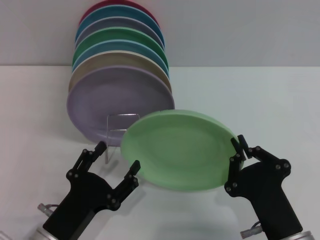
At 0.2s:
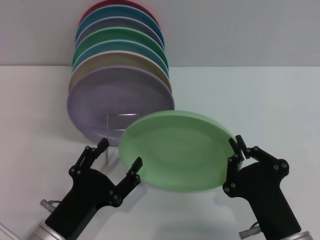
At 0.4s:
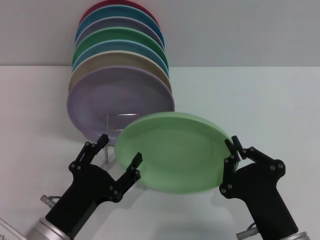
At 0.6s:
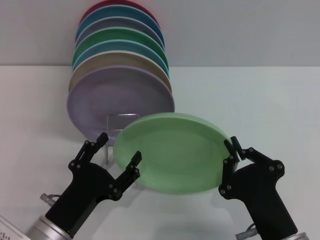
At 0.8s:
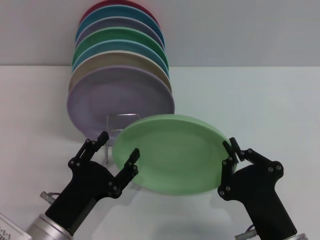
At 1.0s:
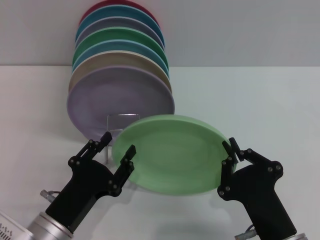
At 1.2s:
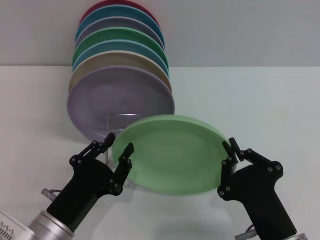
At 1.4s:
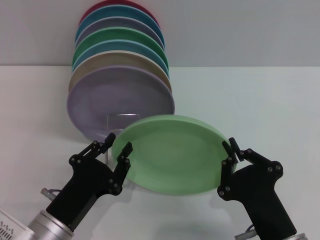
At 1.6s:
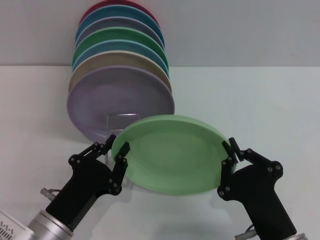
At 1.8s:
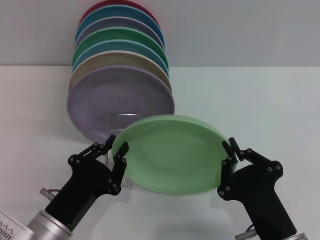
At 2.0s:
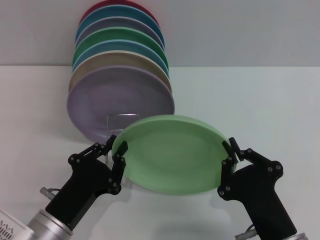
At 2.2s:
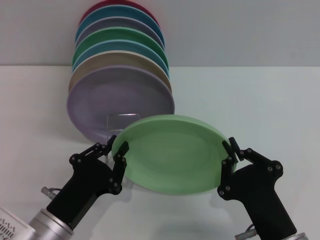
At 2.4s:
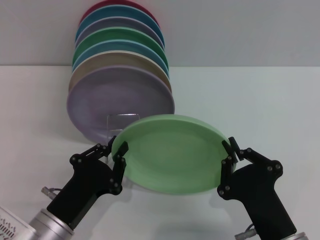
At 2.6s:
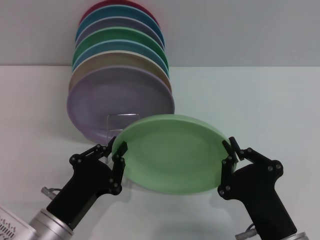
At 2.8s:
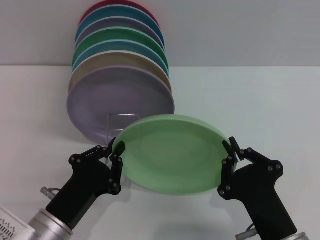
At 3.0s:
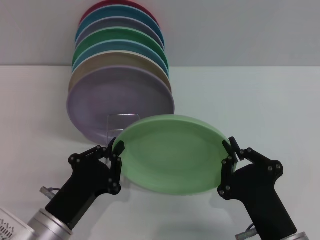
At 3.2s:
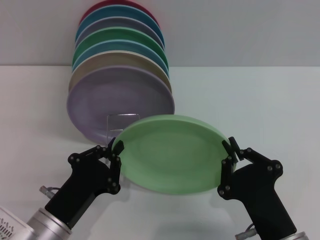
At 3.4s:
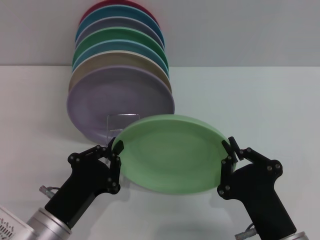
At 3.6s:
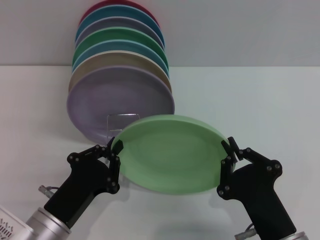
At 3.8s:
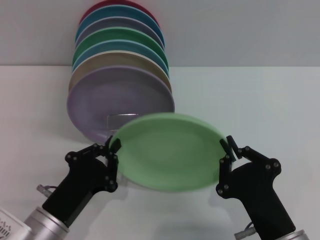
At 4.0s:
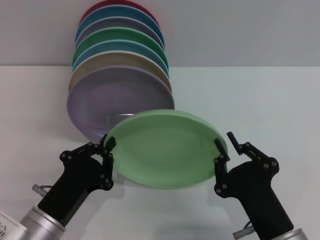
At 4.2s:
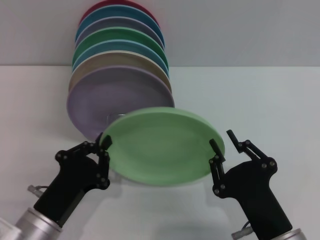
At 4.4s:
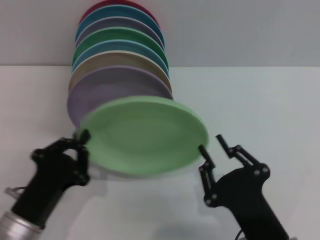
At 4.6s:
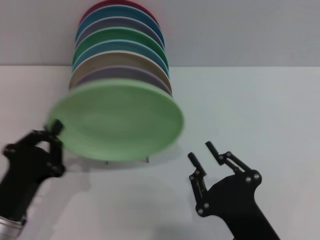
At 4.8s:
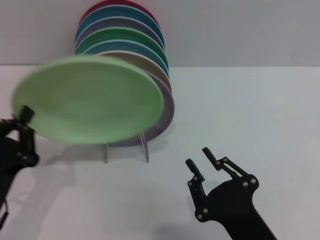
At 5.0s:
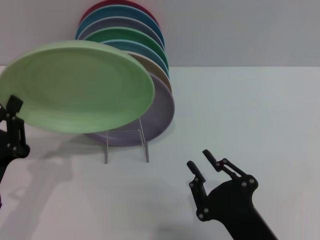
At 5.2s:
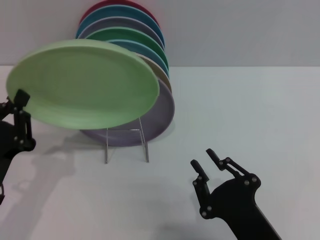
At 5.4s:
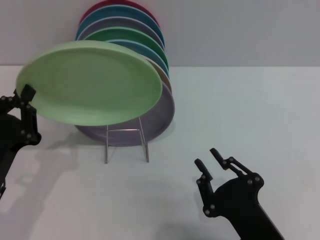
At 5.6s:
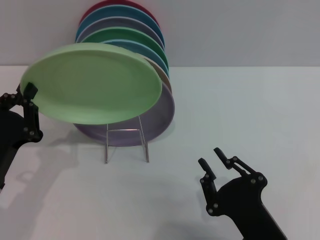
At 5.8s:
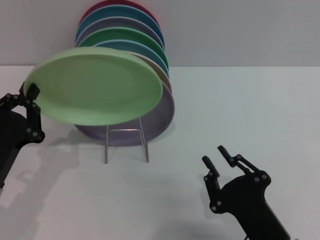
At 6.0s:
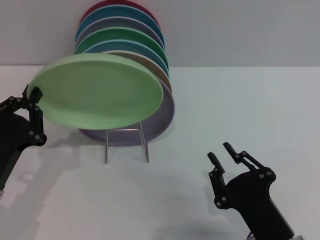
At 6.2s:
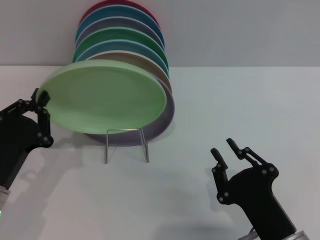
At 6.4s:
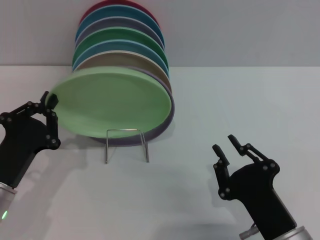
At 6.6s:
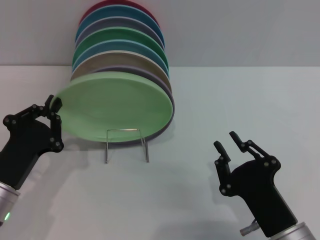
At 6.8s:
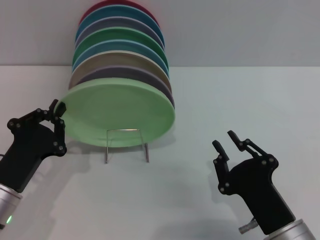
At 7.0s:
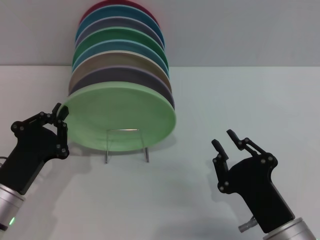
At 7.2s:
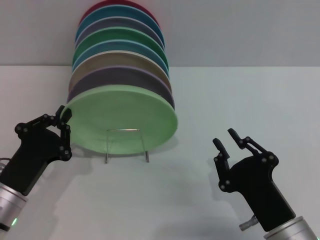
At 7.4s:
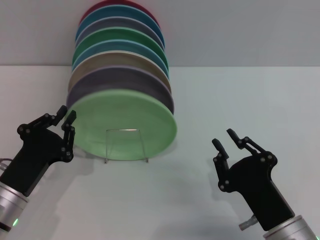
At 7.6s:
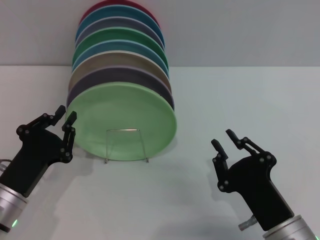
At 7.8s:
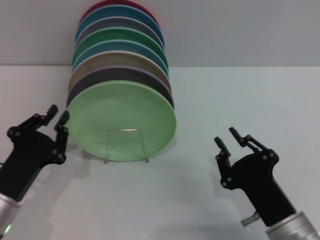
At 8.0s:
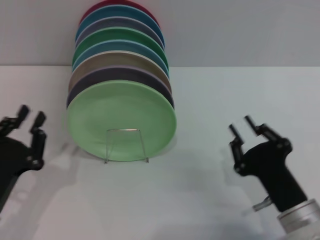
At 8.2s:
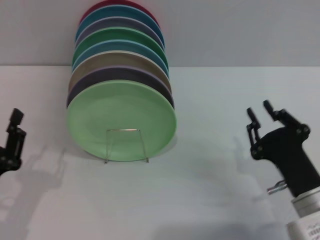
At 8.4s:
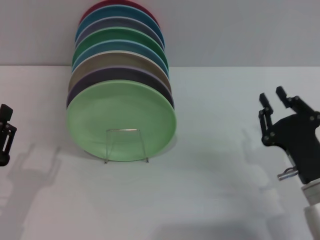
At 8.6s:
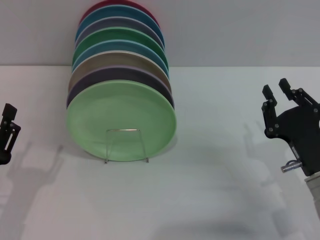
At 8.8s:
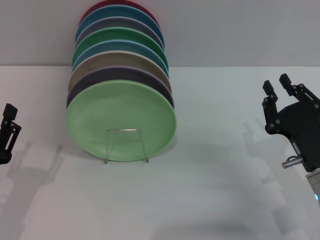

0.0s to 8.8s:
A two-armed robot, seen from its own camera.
Task of the whole recording: Grip the plate with one hand, pass it to the other, then set it on the shelf.
Step, 0.0s to 4.0s: Pass the plate from the right gripper to the left gripper.
Step, 4.4s to 7.6s: Place the plate on the shelf with the left gripper.
0.0s to 1.4s: The left gripper closes up.
1.4s to 3.0s: Both grippers stay about where they are.
3.0s to 4.4s: The right gripper opens its fingers.
4.4s to 5.8s: The left gripper shifts by approximately 5 cm.
7.4s to 8.8s: The left gripper ends up roughly 5 cm from where it was, and opens its fingers, while the right gripper heads forward and to the right, covering some 10 cm.

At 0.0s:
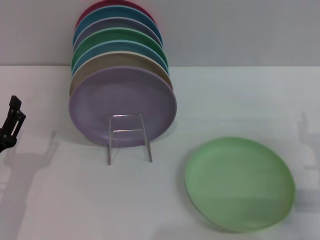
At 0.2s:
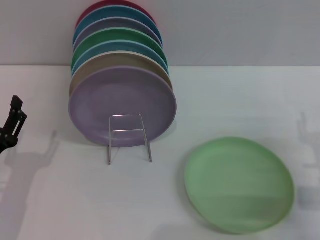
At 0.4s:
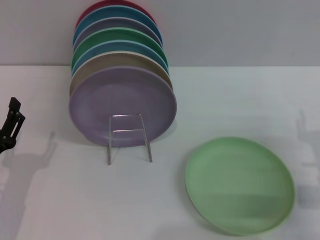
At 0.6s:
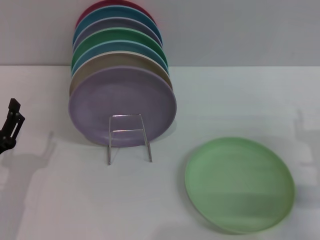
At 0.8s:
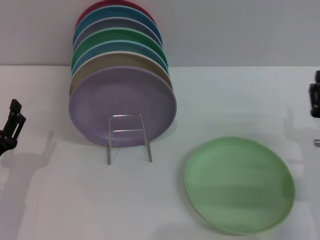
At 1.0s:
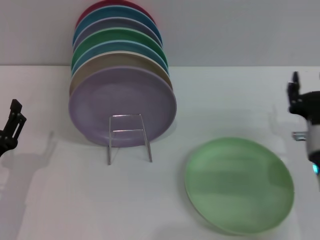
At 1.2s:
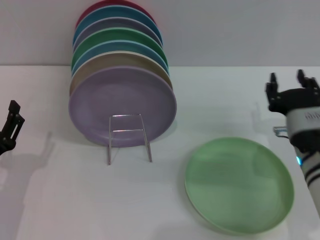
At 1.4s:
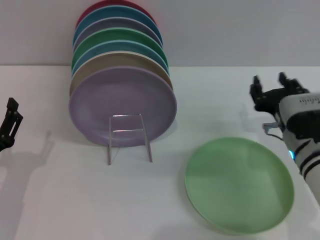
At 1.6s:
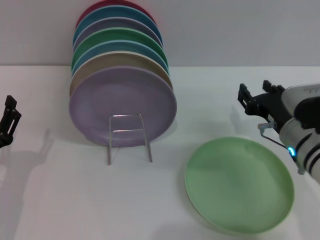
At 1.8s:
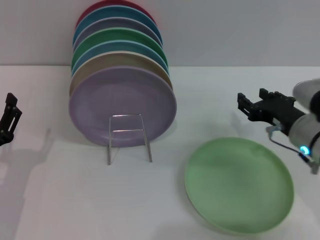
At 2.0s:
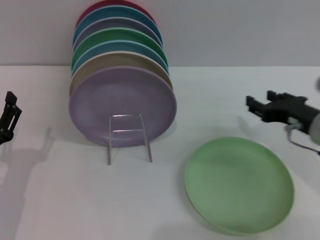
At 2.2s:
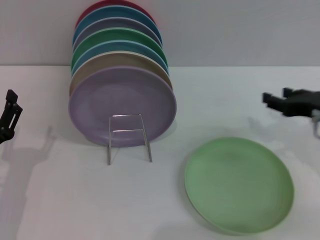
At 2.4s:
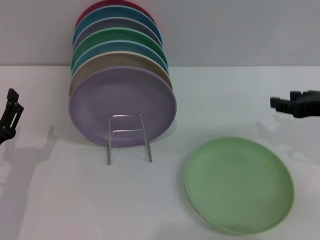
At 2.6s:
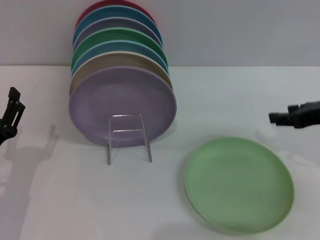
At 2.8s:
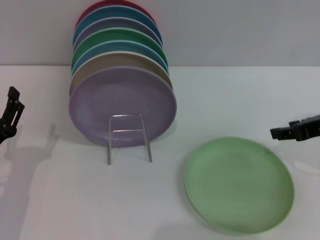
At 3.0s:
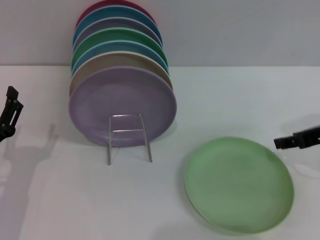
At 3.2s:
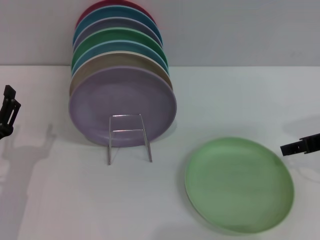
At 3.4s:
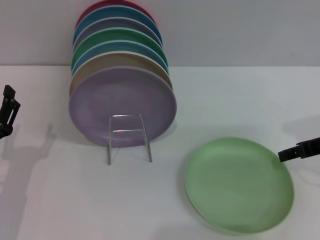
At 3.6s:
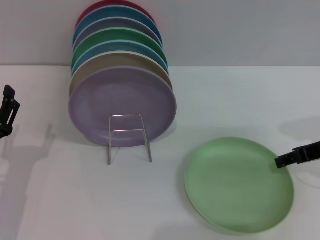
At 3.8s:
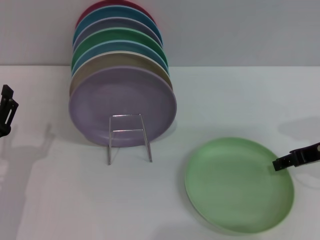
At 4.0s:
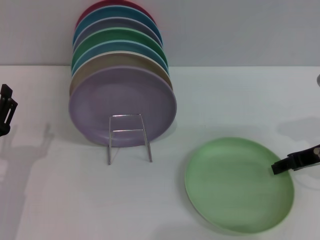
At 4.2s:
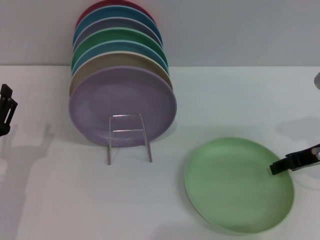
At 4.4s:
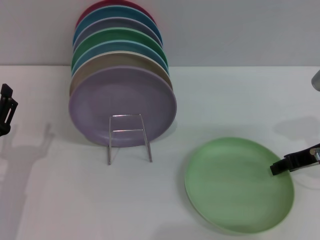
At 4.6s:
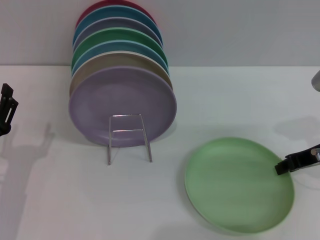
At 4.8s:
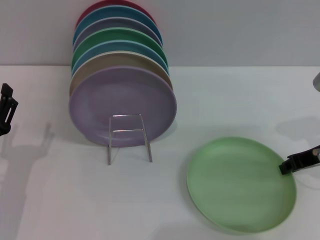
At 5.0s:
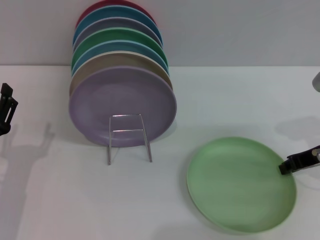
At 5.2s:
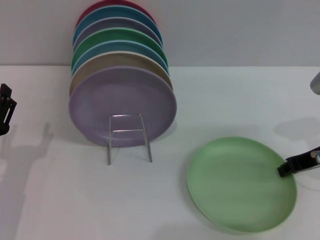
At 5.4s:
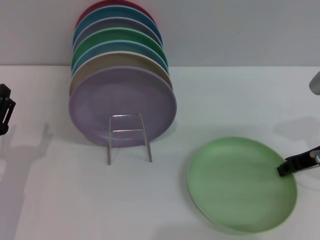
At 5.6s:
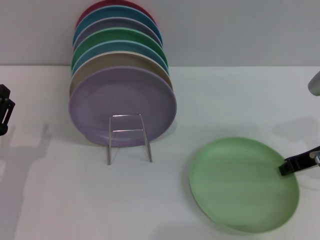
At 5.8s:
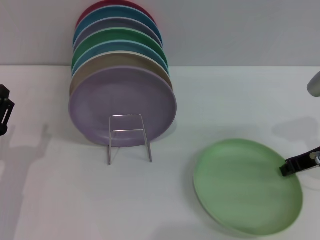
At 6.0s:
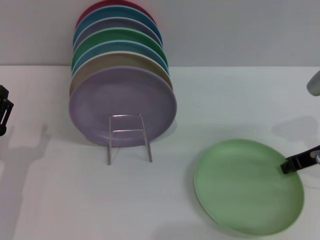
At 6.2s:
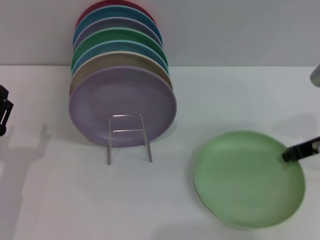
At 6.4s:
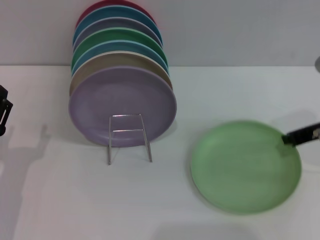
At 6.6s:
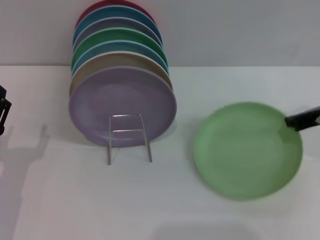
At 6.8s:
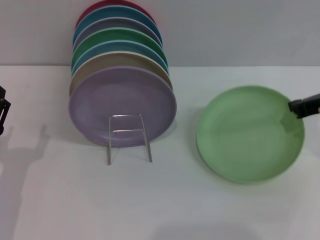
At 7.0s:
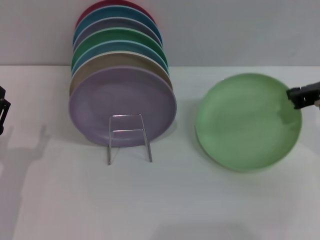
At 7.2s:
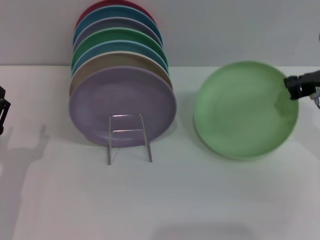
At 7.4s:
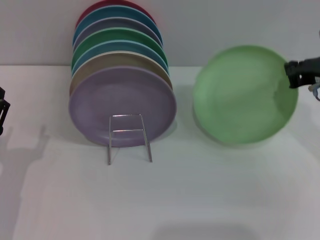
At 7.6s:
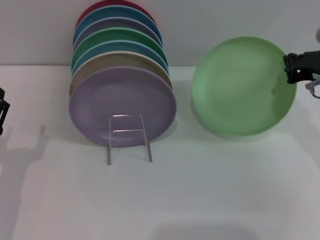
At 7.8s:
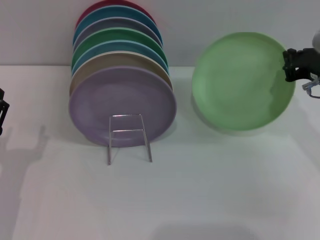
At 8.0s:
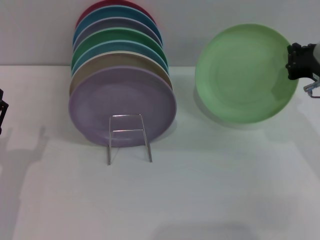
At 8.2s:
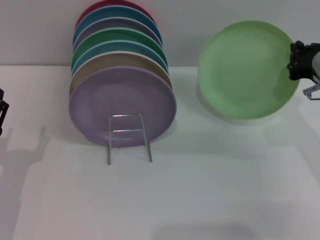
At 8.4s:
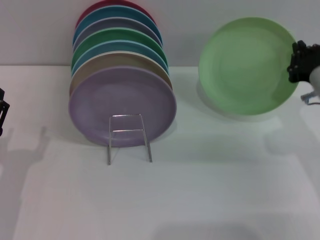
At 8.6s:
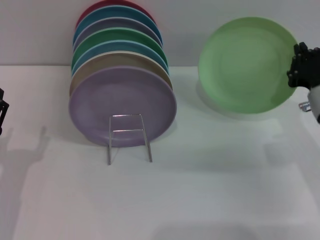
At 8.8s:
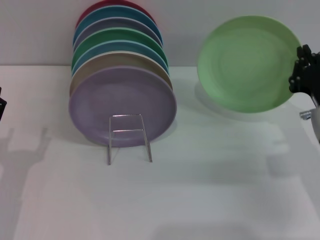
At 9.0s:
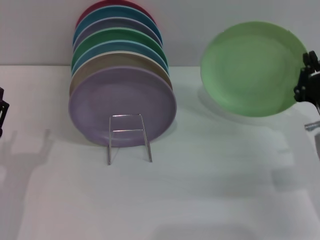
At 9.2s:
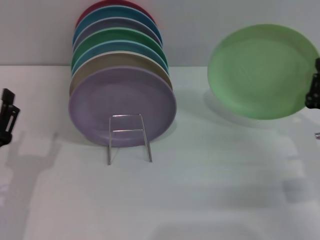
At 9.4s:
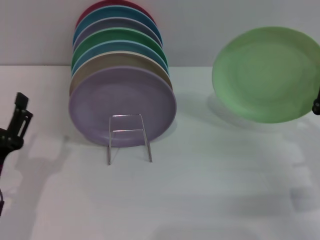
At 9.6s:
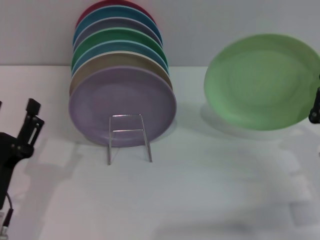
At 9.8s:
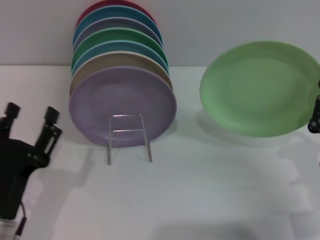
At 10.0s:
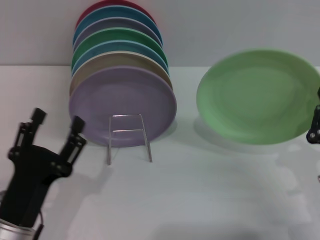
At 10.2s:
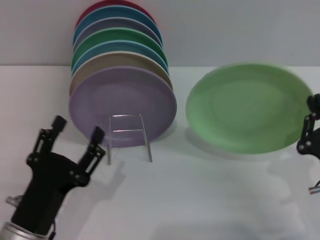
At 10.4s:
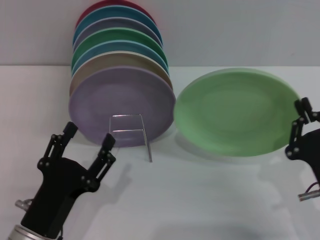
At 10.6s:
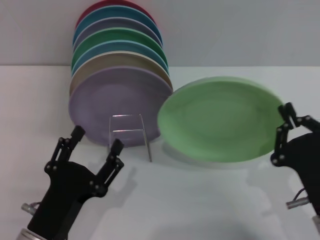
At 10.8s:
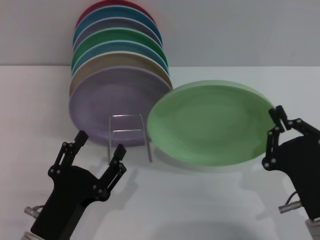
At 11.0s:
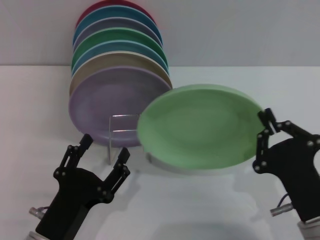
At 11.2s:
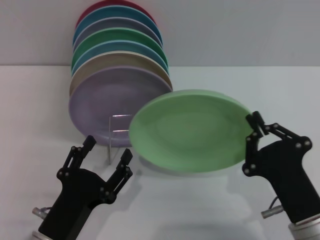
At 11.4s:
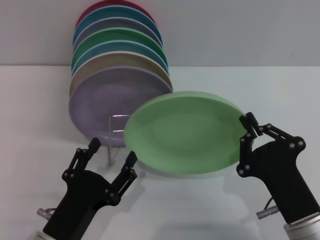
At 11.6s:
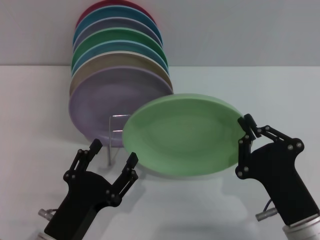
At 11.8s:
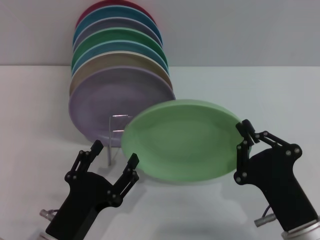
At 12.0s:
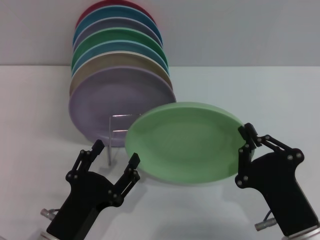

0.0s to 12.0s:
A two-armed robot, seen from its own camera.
Task of the whole recording: Grip the plate with one hand, pass it to the other, then set it on the shelf.
Step, 0.0s to 7.2s: Pick up the plate with the right gripper.
0.0s to 1.6s: The right gripper goes roughly 10 cm to the left and forward.
1.6s to 3.0s: The right gripper moves upward and to the right, roughly 15 cm.
3.0s to 4.4s: The grippers make only small movements.
4.4s to 6.0s: The right gripper closes its fingers.
6.0s to 7.6s: The right gripper ends up approximately 5 cm from where it was.
7.6s to 9.0s: The right gripper travels downward and backward by roughly 10 cm.
9.0s to 10.4s: The left gripper moves to the right, about 10 cm. Meanwhile the right gripper goes roughly 10 cm backward.
10.4s to 12.0s: The right gripper shifts some 5 cm to the left.

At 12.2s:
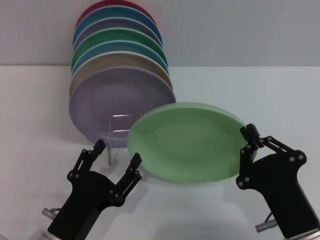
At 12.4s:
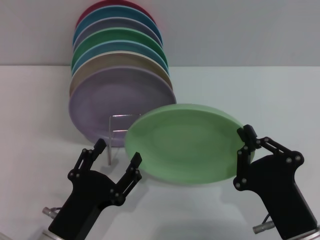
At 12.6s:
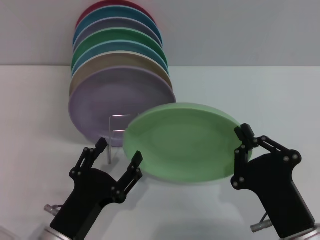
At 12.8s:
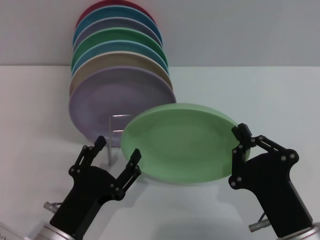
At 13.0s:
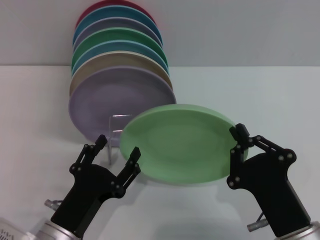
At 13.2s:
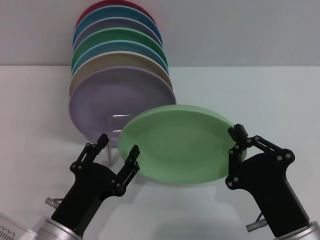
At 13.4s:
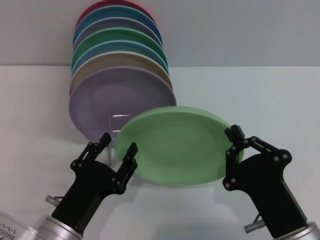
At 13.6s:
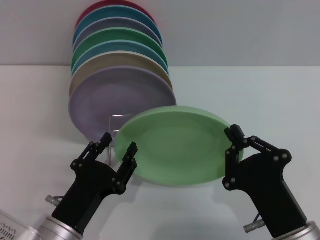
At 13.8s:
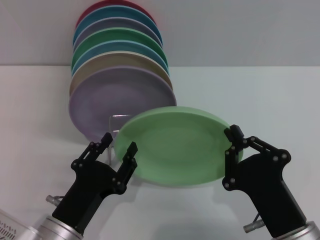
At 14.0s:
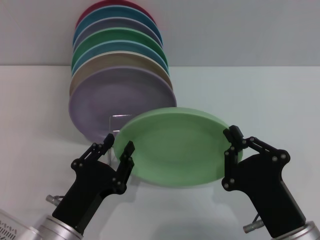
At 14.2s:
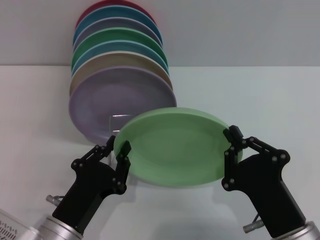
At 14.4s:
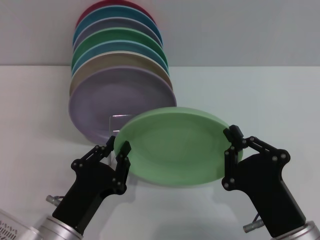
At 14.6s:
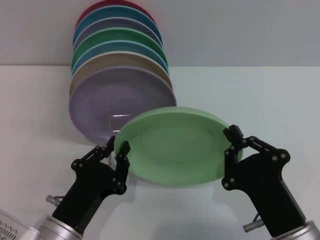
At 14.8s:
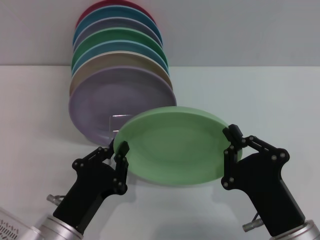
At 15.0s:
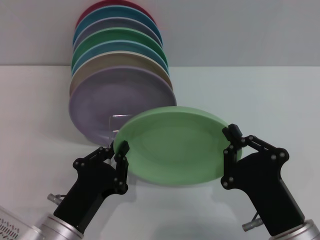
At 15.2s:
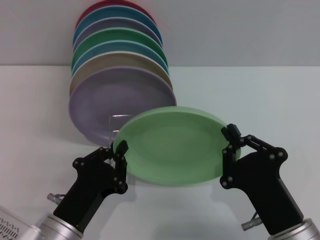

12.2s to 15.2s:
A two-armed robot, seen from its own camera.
Task of the whole recording: Grip the plate with one hand, pass it to the other, then set it on the shelf.
12.2s to 13.8s: The grippers move only a little.
13.8s to 15.2s: The left gripper closes.
